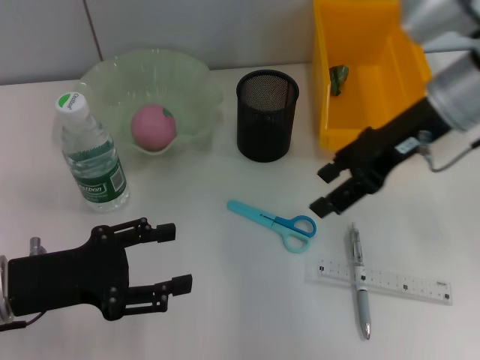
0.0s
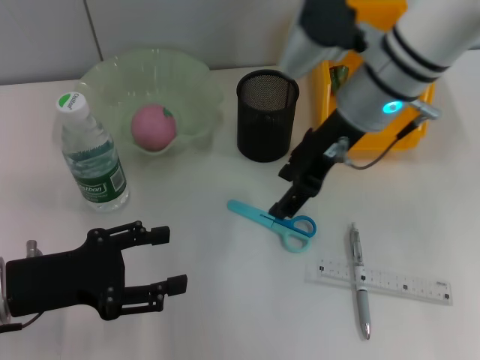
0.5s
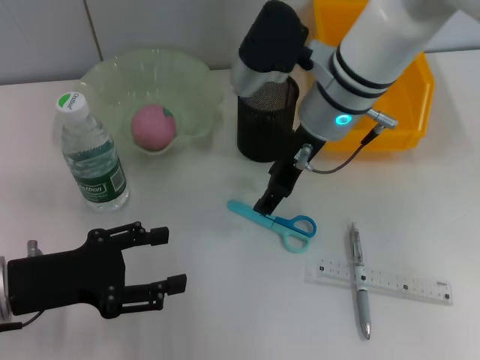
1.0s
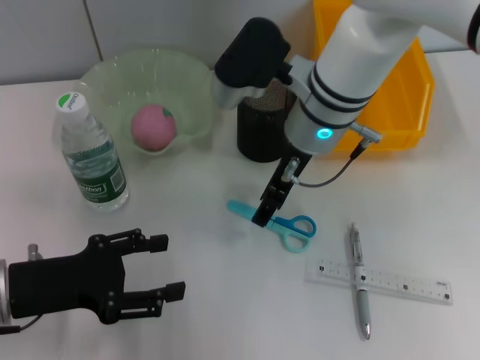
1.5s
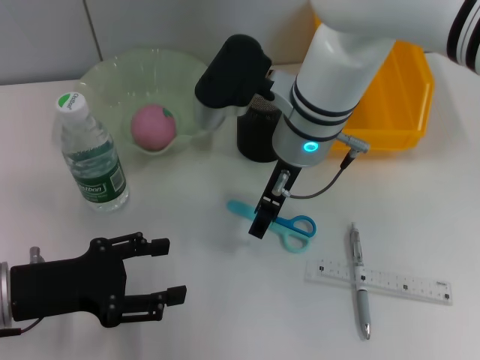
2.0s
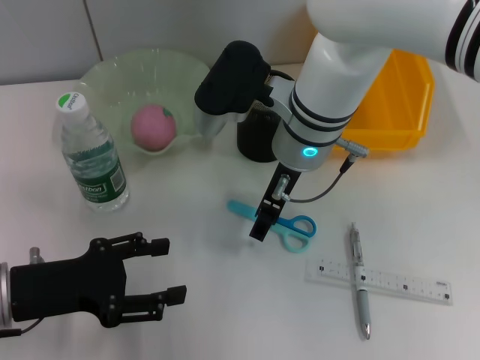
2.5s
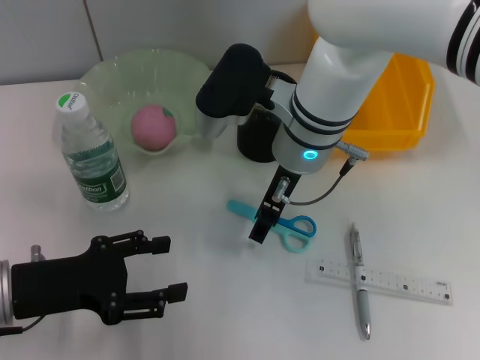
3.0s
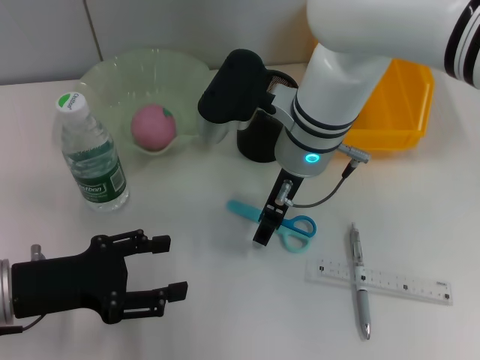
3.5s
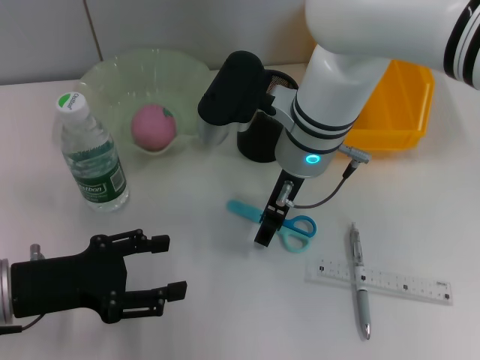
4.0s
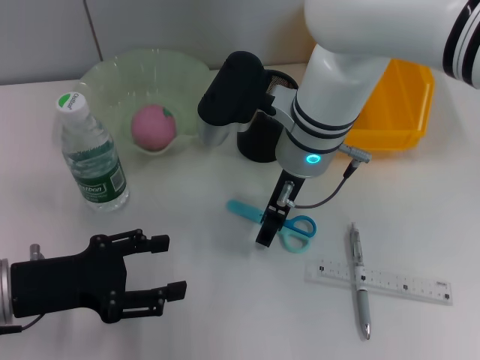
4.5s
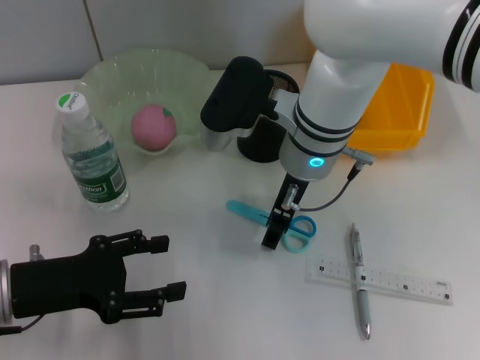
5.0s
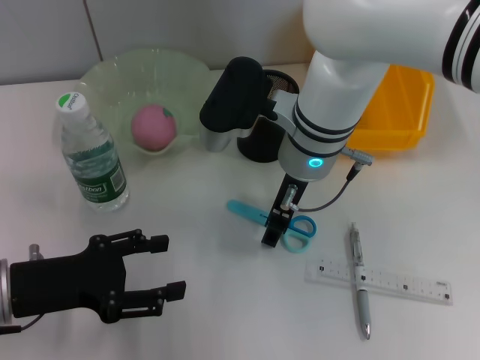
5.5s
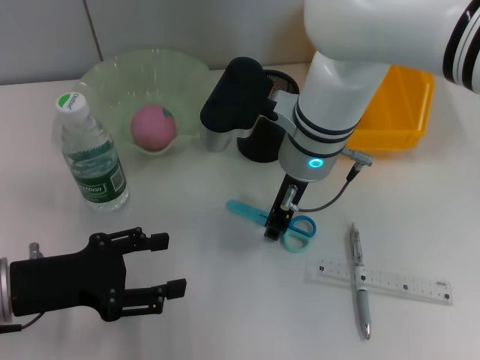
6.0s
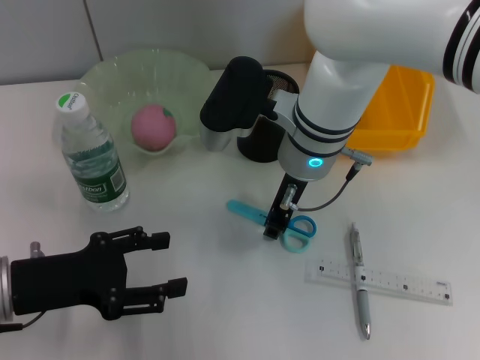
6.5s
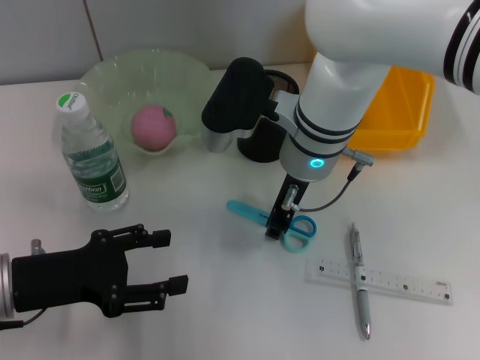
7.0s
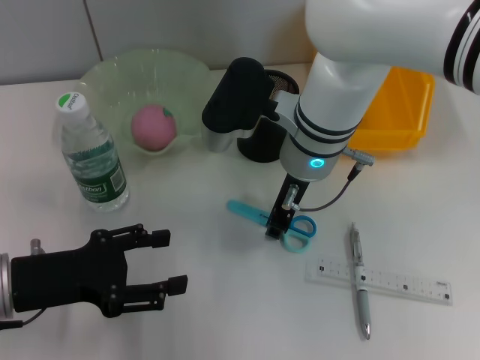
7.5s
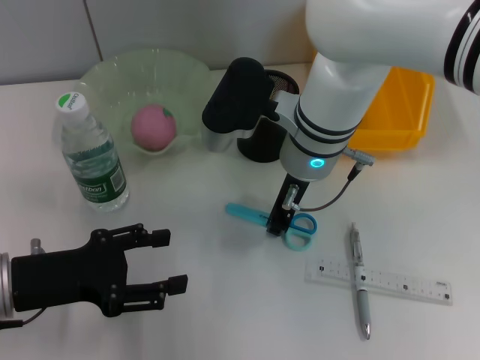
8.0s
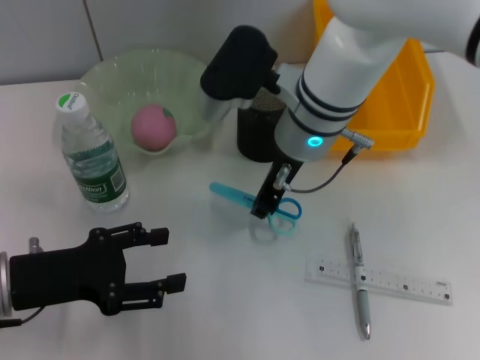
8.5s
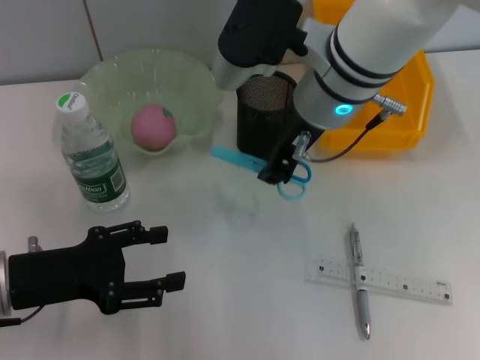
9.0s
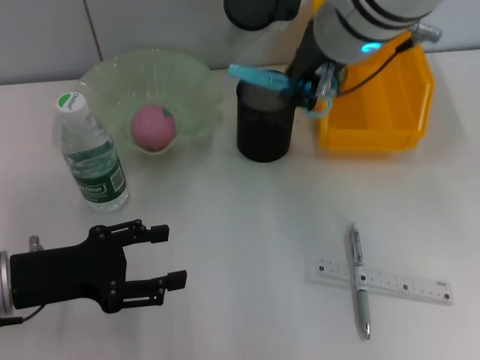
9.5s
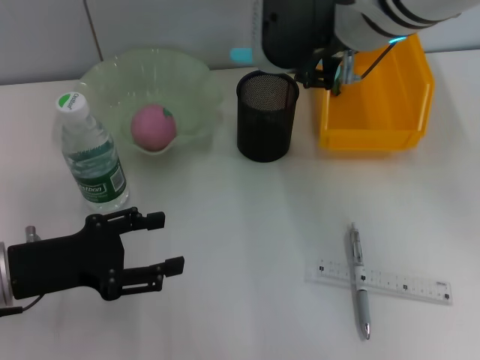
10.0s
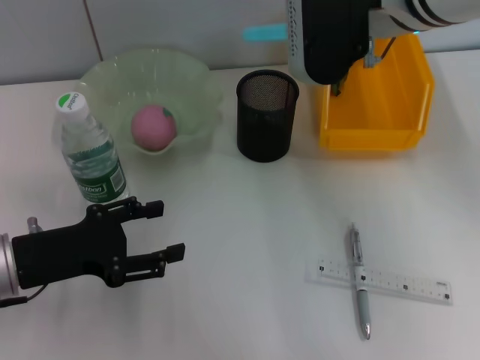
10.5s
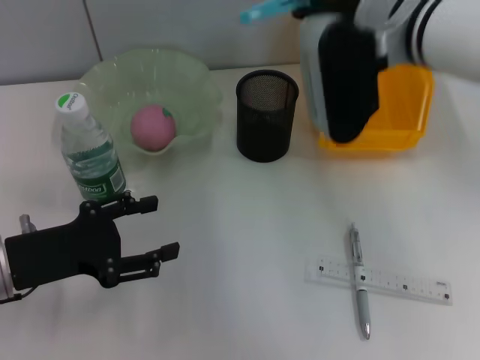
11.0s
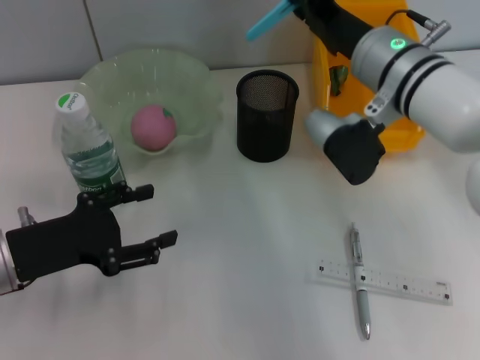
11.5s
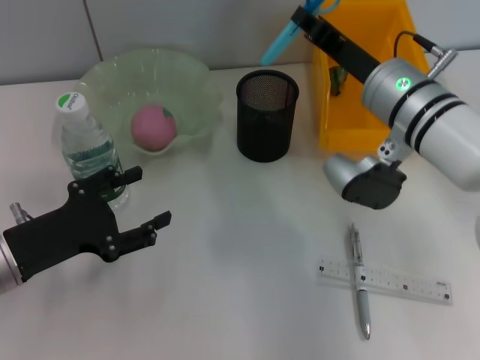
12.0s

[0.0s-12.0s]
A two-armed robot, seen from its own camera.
Step, 0.0s to 8.0s: Grab the blue scissors with the right hand.
0.0s to 2.0s: The right gripper is displaced to the left by about 15 cm.
2.0s to 4.0s: Both grippers stay about where they are.
4.0s to 6.0s: The right gripper closes its fingers.
6.0s to 8.0s: Neither gripper changes place.
8.0s to 10.0s: The right gripper goes roughly 15 cm upward.
10.0s to 12.0s: The right gripper shifts some 15 cm downward and to the right.

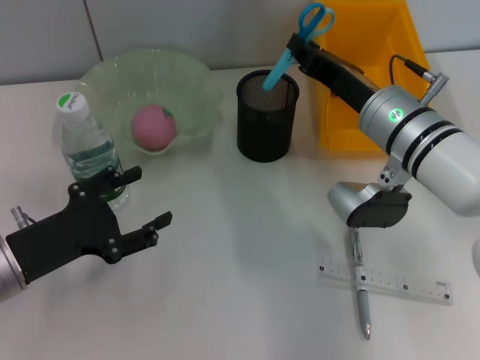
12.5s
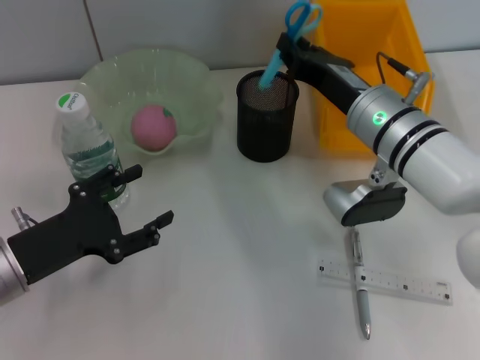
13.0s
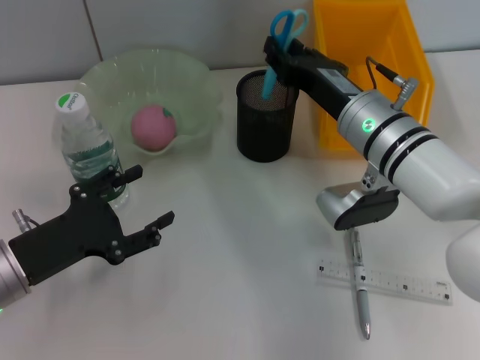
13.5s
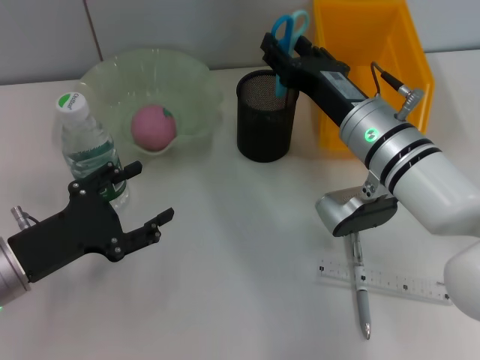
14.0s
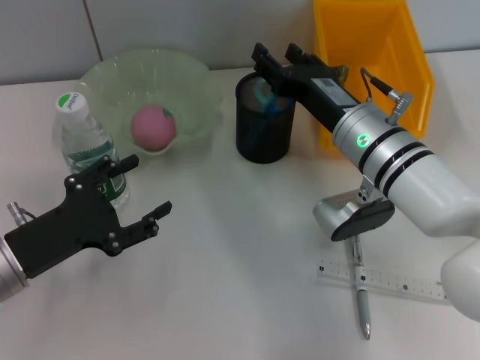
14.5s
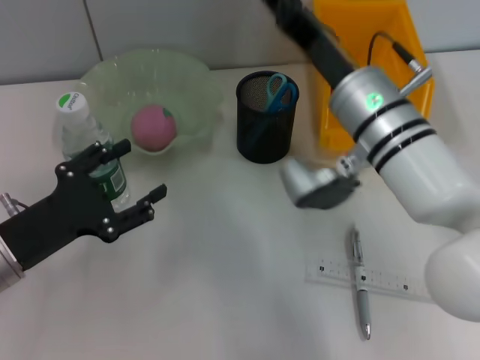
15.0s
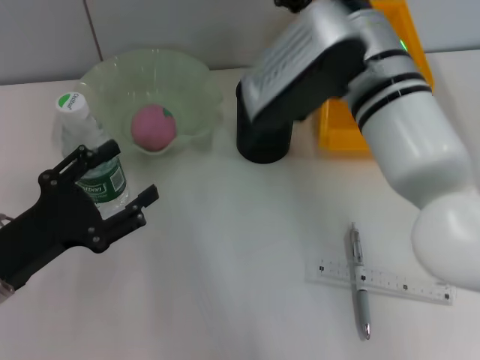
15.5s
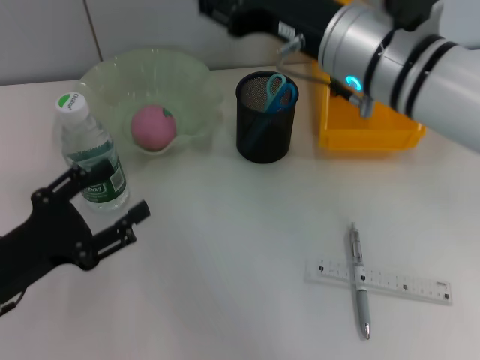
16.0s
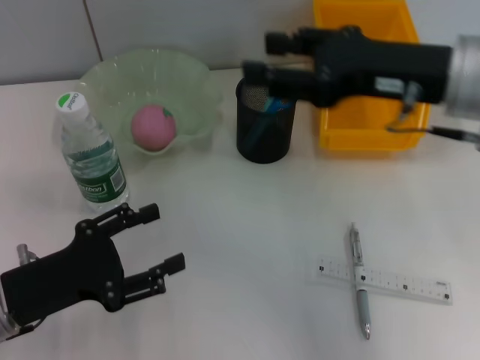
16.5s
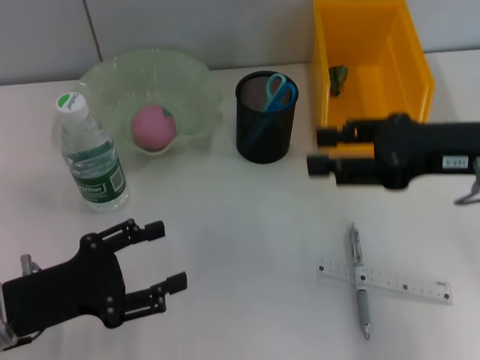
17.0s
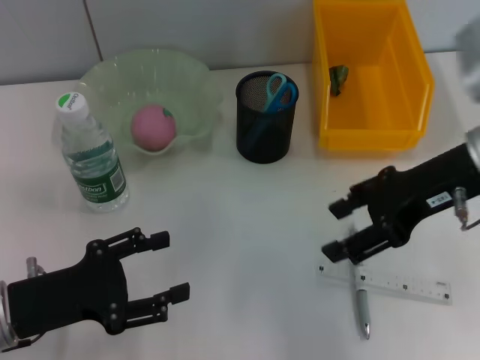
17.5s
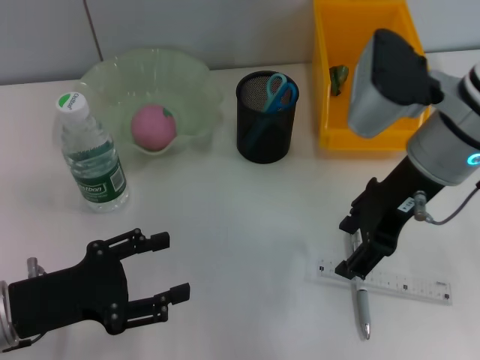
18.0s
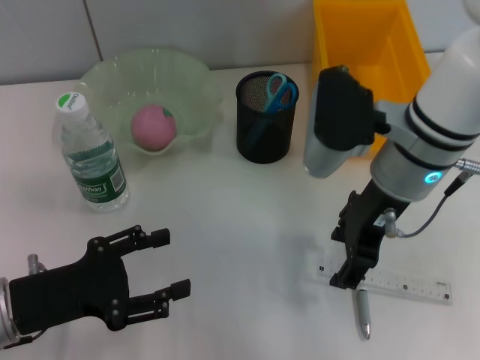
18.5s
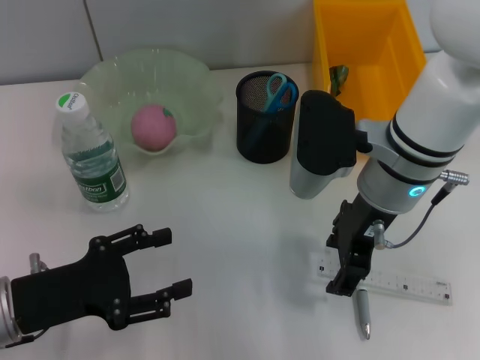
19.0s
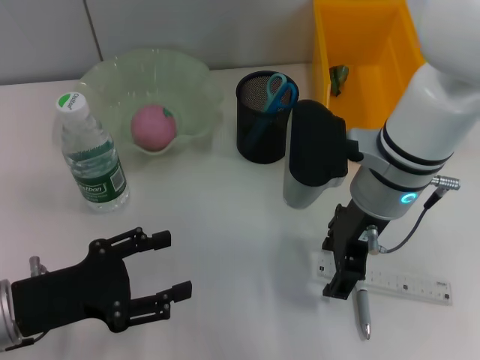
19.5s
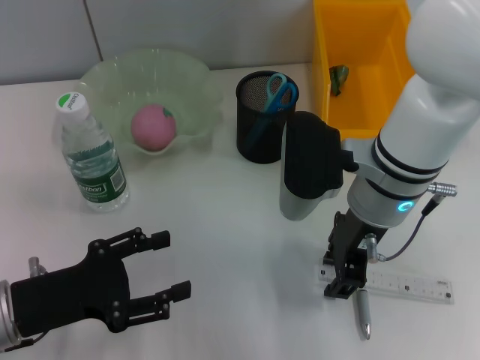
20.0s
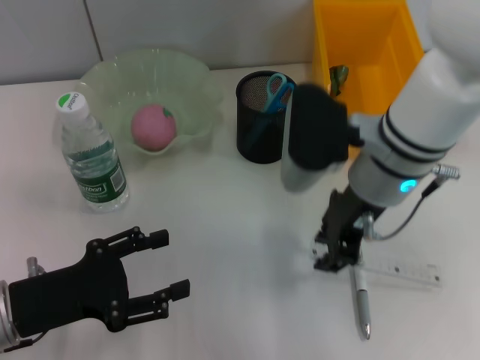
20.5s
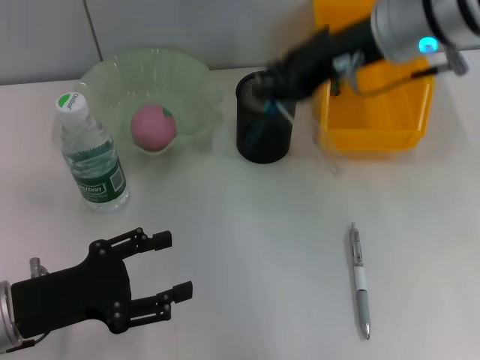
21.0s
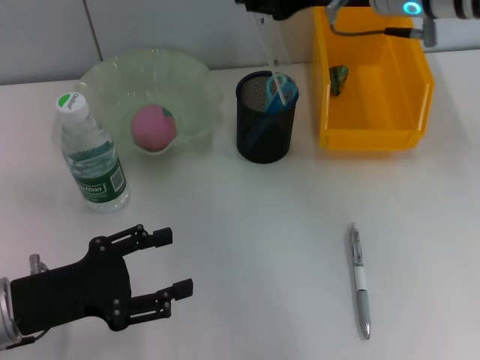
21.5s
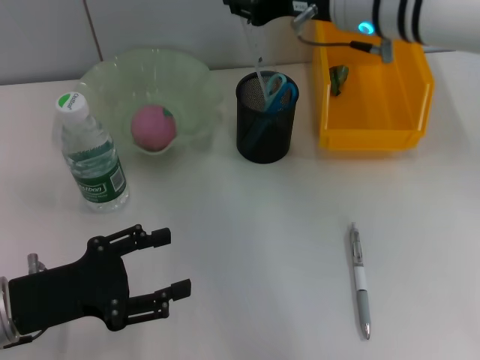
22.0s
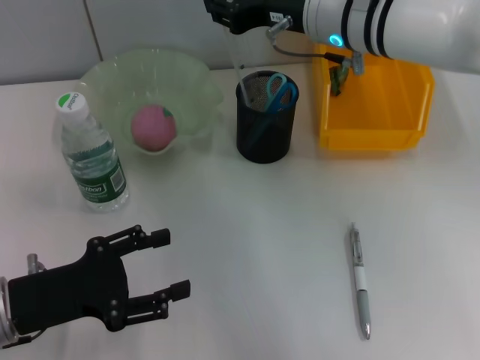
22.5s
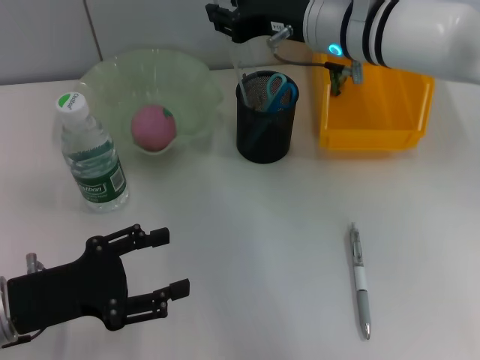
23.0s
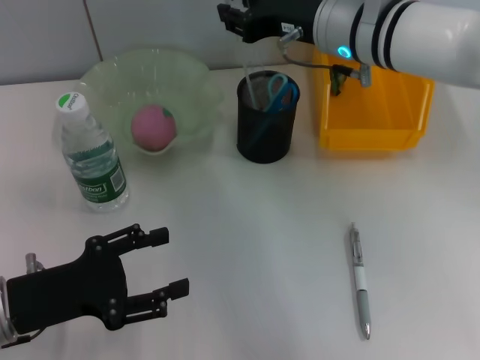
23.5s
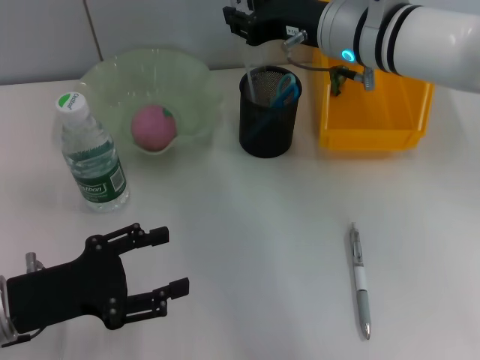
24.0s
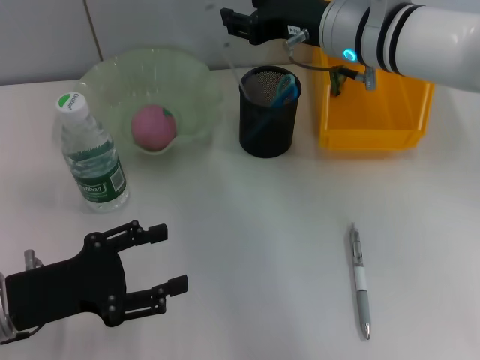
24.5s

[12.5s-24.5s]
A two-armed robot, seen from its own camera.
Step, 15.0s to 20.0s: Grab the ruler with the right hand.
12.5s to 14.5s: The right gripper opens its fingers.
14.5s to 16.5s: The right gripper travels upward and to the right by about 15 cm.
16.5s to 18.5s: The right gripper moves downward and to the left, roughly 10 cm.
18.5s to 20.5s: The right gripper closes.
20.5s to 22.5s: The right gripper is displaced forward by about 10 cm.
22.5s to 24.5s: The grippers move only a little.

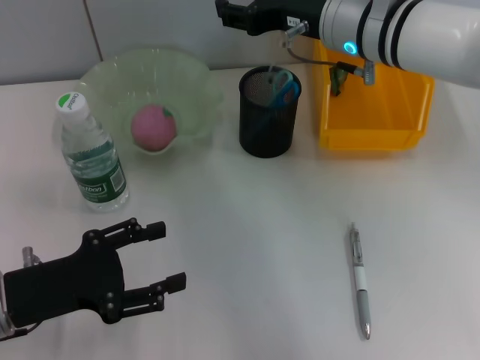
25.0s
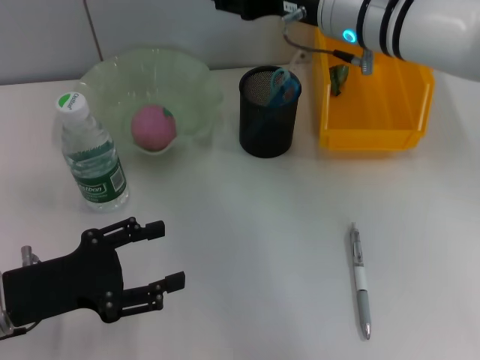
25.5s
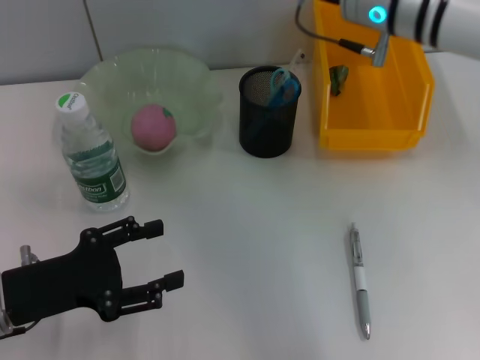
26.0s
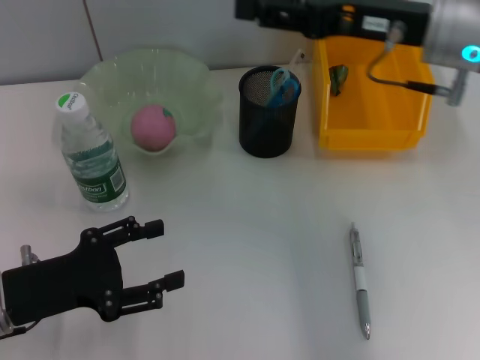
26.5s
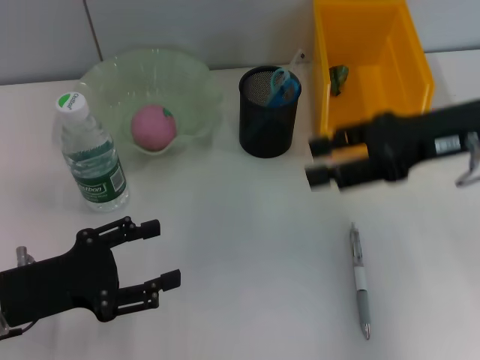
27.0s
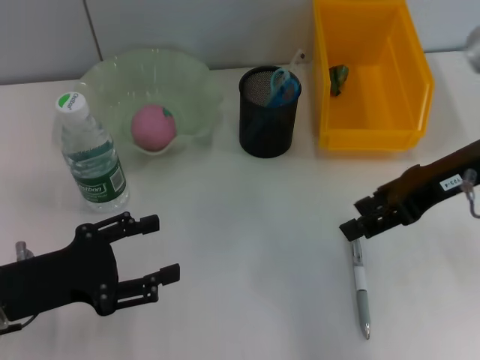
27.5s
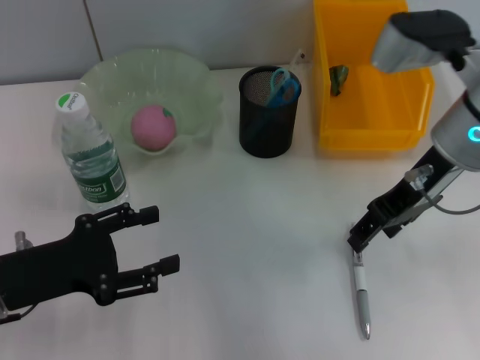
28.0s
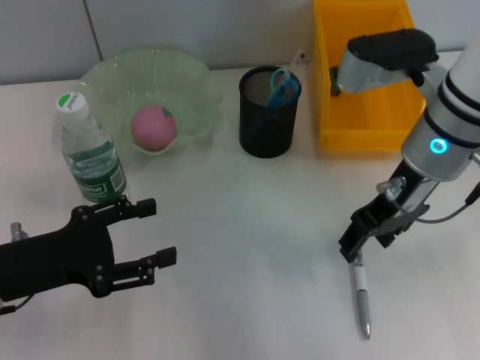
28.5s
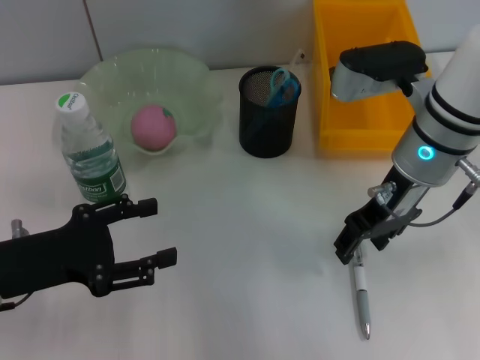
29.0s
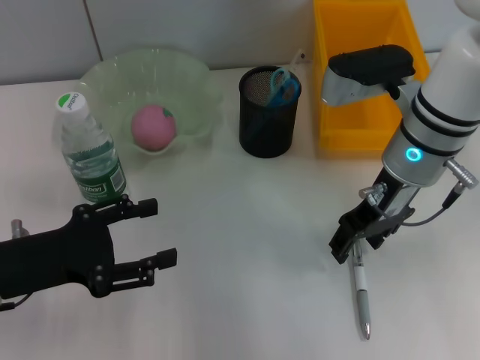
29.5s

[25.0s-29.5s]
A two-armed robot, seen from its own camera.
25.0s to 27.0s: The right gripper travels to the right and backward by roughly 15 cm.
27.0s to 29.5s: The right gripper goes about 10 cm to the left.
